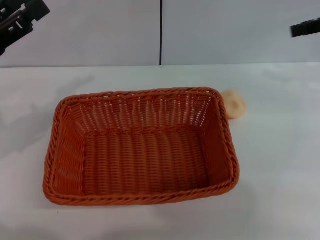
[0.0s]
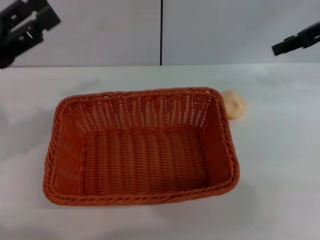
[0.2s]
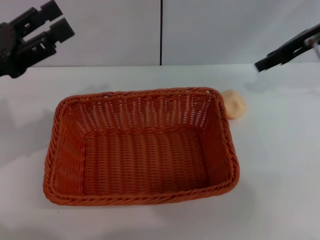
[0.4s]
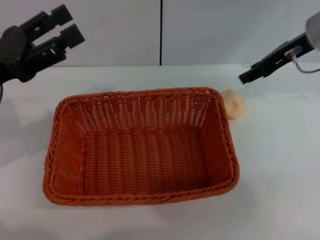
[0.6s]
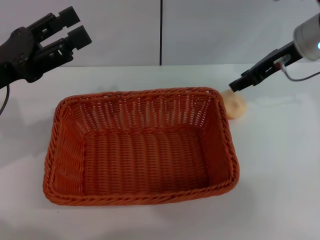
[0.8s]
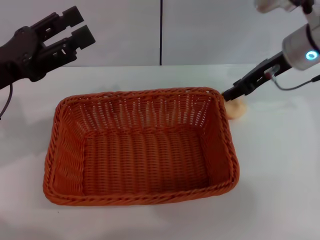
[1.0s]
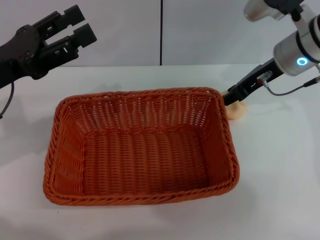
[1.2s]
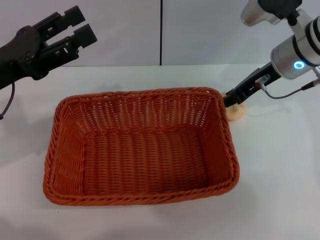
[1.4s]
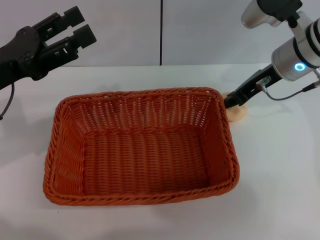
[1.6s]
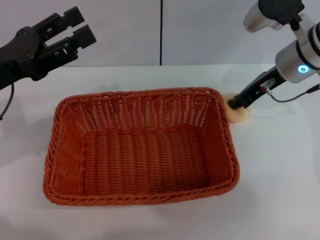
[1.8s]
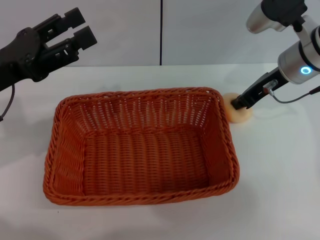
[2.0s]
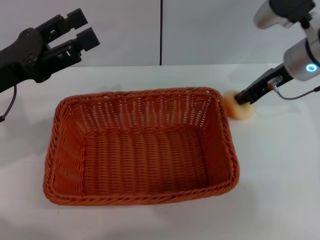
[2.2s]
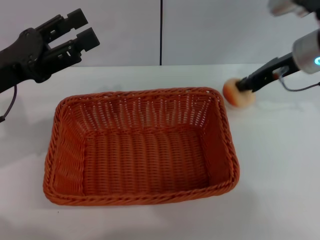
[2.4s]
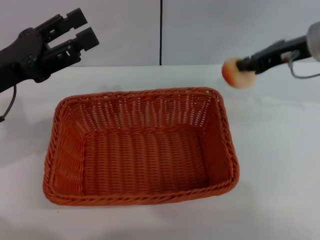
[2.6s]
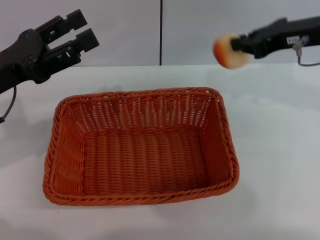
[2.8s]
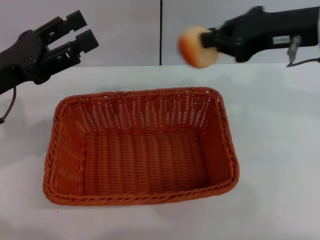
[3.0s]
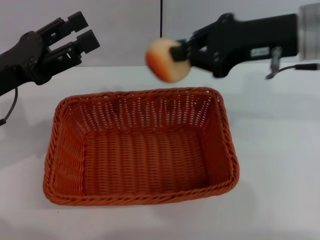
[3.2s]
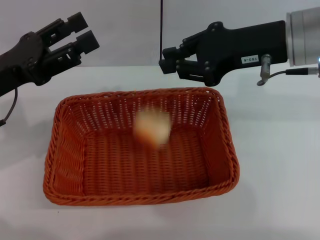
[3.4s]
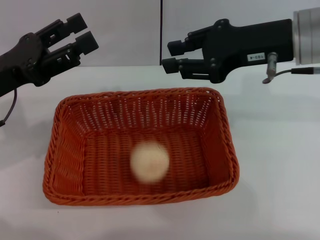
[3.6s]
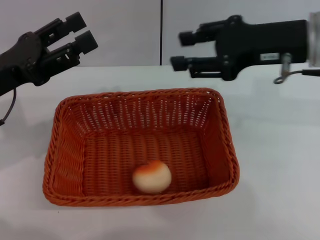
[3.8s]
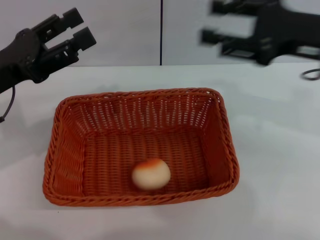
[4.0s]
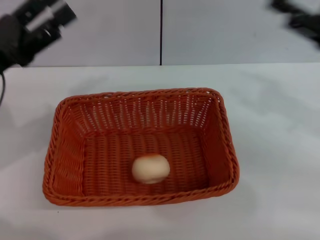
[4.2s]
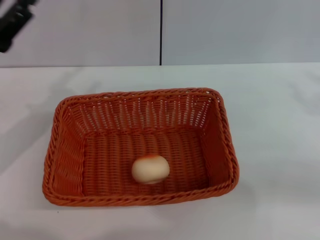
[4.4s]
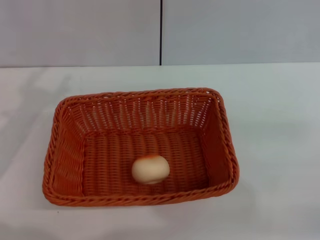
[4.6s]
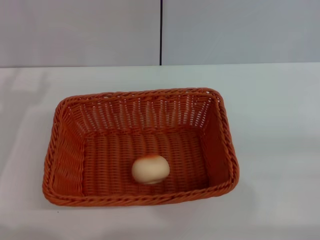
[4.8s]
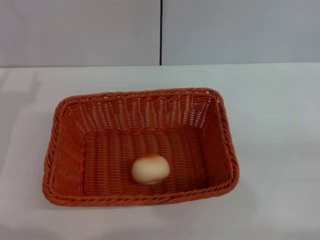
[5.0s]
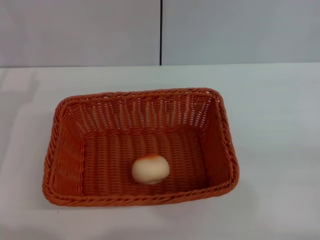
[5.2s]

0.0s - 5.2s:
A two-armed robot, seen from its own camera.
Step, 0.0s - 2.6s: Pick up the egg yolk pastry with the right gripper.
Step, 2.8s - 4.0s: Place the egg yolk pastry into the basket with the right gripper.
0.0s - 1.8s: The right gripper shifts some 15 cm to the left and downward, and closes up.
1.8s - 3.4s: The right gripper travels upward and backward by some 10 cm.
3.4s - 5.2s: The left gripper travels downward by about 5 cm. The right gripper heads to the right, backward and downward, covering approximately 30 cm, and opens up.

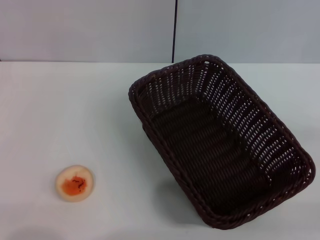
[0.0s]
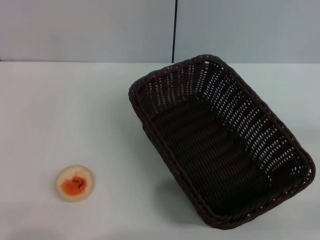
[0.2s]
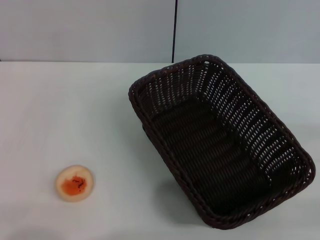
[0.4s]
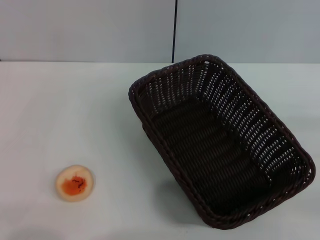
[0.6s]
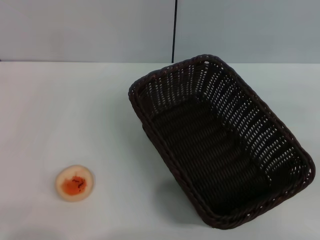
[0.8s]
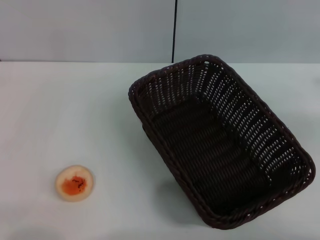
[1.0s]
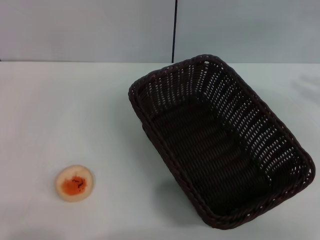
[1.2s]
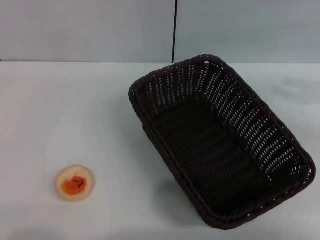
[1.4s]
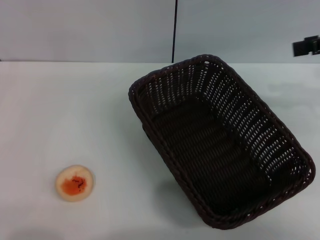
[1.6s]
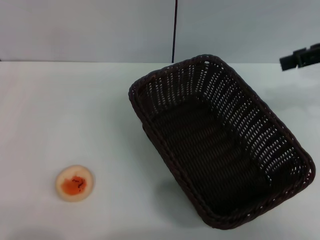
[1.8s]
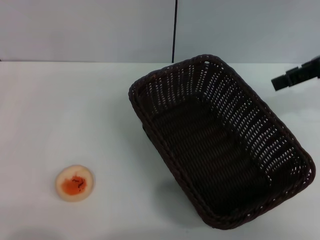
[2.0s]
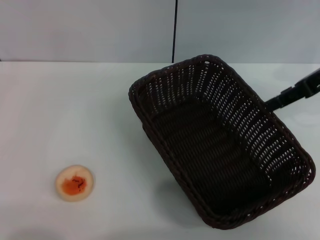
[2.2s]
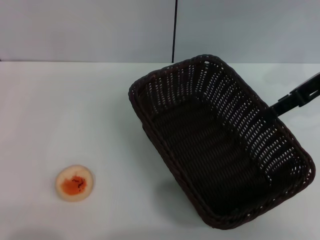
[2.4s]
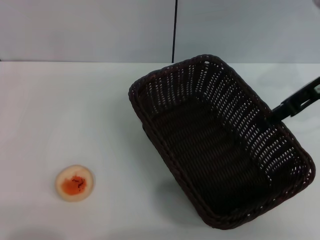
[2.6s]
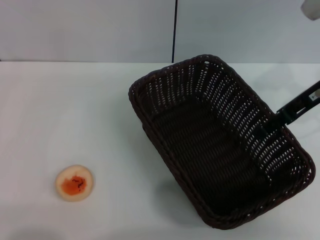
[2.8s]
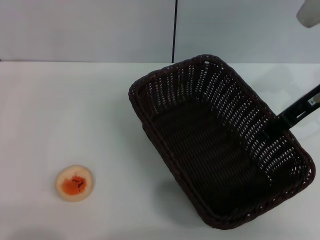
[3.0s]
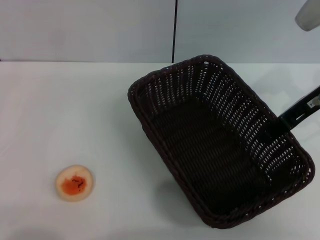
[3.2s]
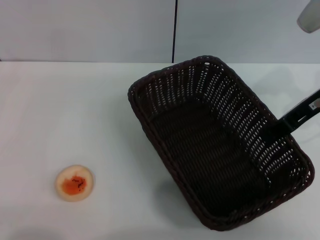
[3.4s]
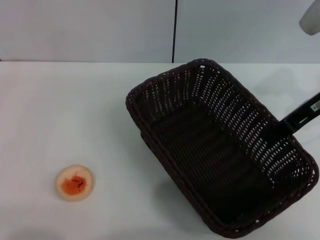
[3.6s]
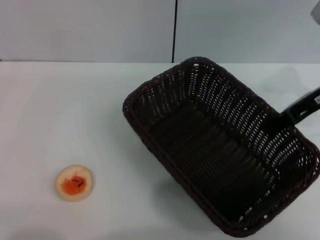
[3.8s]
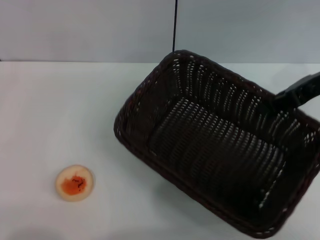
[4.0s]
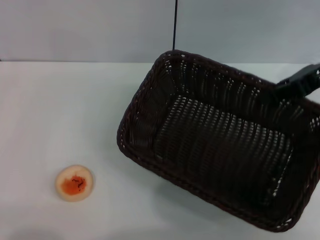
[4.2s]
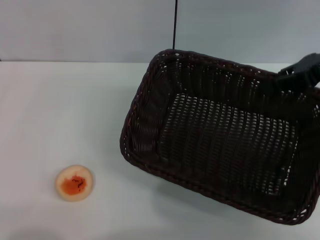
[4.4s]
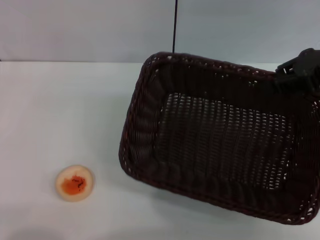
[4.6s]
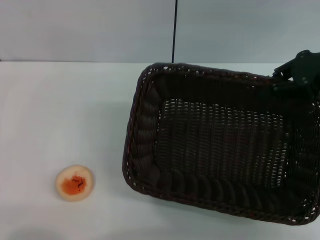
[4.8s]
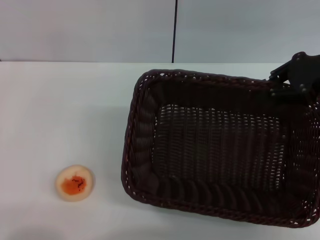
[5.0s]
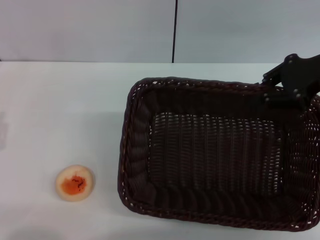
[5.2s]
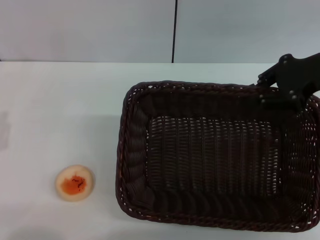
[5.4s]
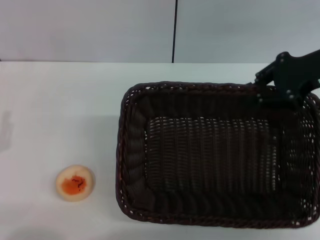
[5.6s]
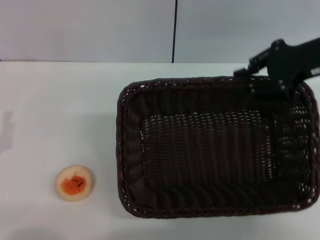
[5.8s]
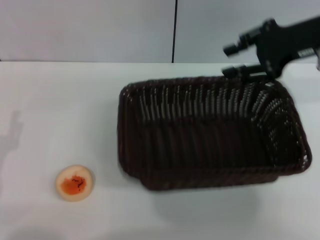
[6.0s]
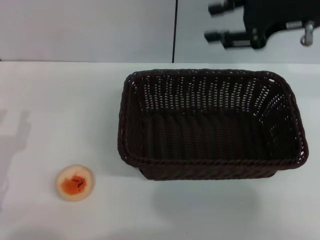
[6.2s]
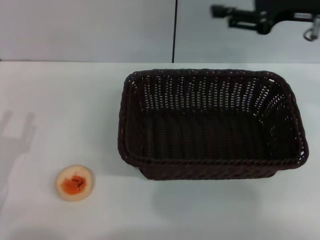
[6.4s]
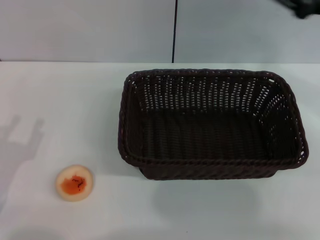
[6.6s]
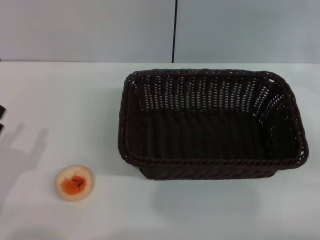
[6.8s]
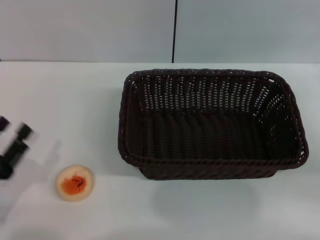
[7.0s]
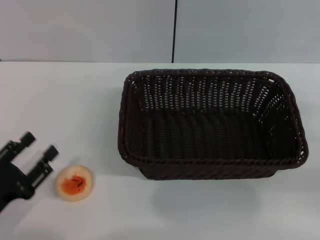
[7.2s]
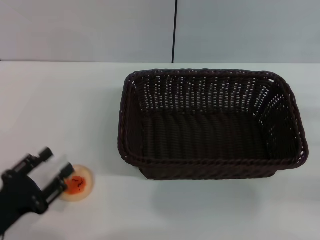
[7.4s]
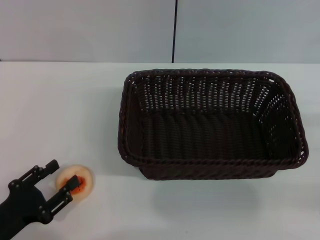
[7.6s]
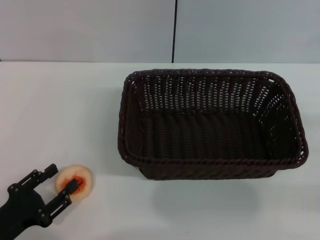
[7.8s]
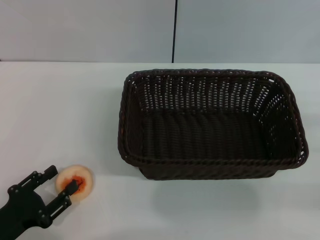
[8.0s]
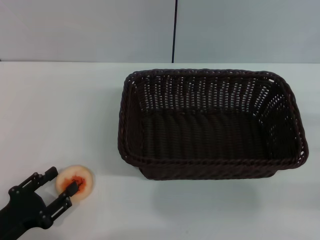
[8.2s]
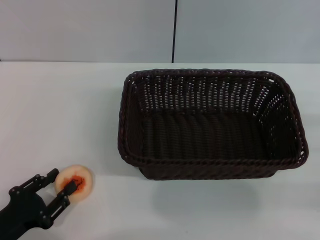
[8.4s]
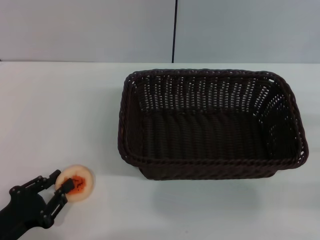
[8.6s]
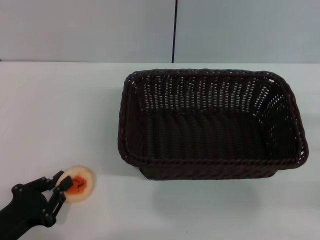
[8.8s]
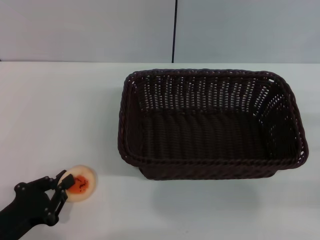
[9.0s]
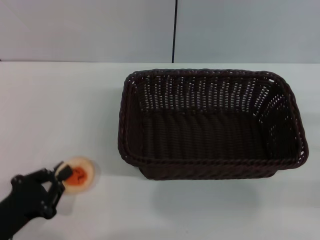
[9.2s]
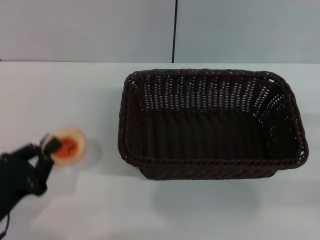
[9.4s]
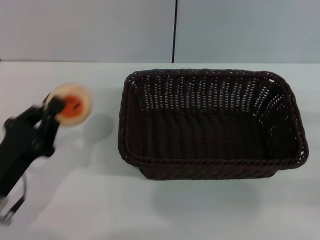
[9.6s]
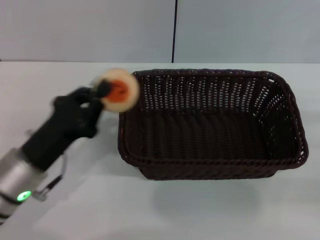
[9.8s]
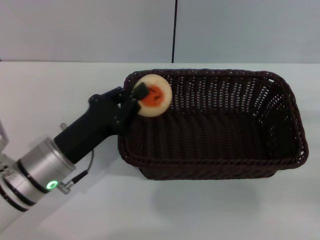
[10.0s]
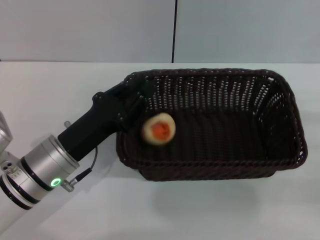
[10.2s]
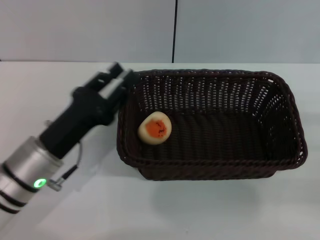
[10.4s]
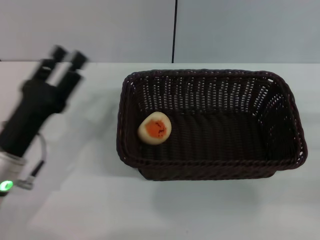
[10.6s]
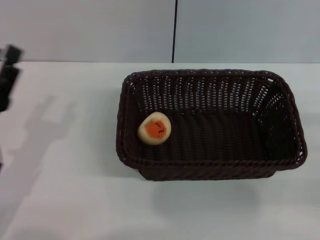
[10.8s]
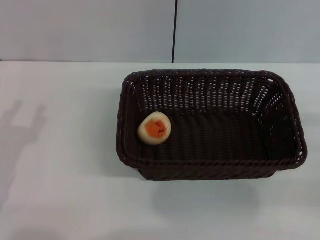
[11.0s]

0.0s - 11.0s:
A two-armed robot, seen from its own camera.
Step, 0.0s - 6.0s: Move the basket to the center of view with the right gripper.
Step, 6.2s - 9.2s: Pick up the egg yolk pastry with the left gripper.
Step, 9.4s - 10.6s: Place the egg yolk pastry into the basket with the left gripper.
0.0s - 1.6s: The right gripper goes some 25 cm upward and forward.
1.6s - 3.2s: The right gripper shifts some 10 cm to the left and downward.
3.2s - 4.8s: The right gripper shifts by roughly 5 cm, and closes up.
4.8s - 6.2s: The right gripper moves to the left, roughly 5 cm, and opens its fingers.
6.2s - 7.8s: The right gripper shifts about 30 cm backward, to the right and downward; the left gripper moves approximately 5 cm.
7.8s - 9.4s: The left gripper closes.
9.4s - 11.0s: The left gripper goes to the right and returns, some 10 cm each way, and opens up.

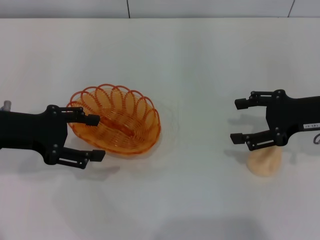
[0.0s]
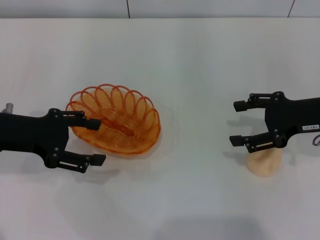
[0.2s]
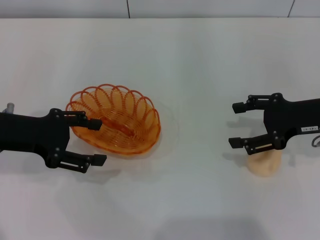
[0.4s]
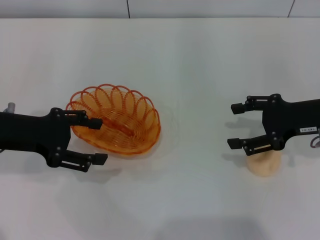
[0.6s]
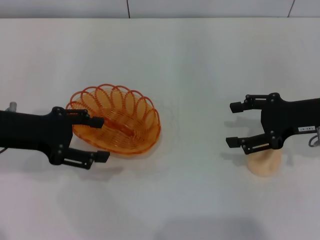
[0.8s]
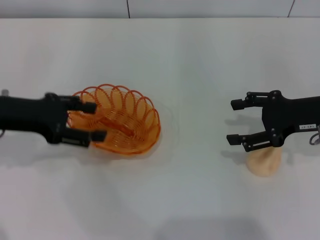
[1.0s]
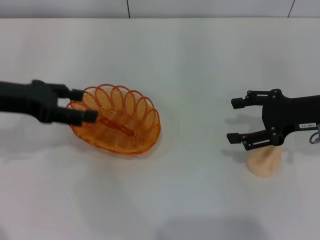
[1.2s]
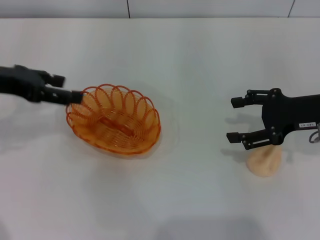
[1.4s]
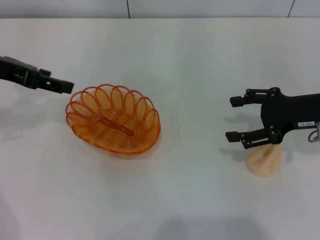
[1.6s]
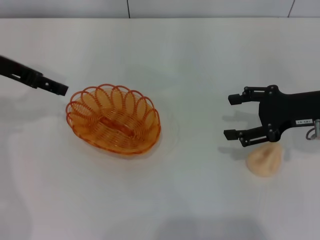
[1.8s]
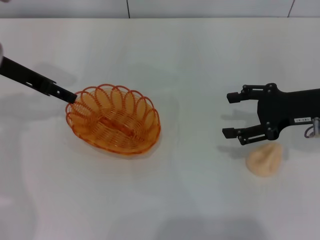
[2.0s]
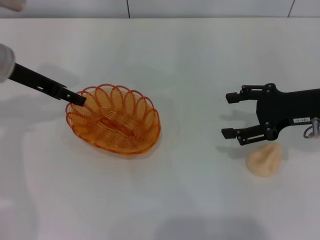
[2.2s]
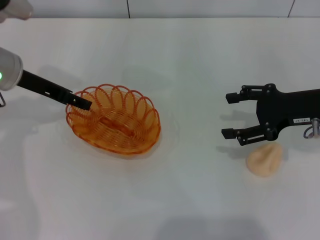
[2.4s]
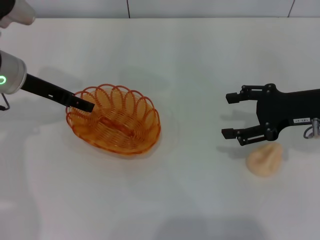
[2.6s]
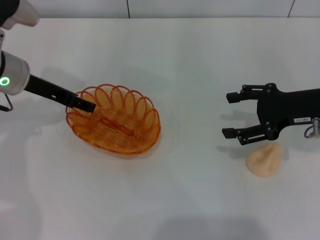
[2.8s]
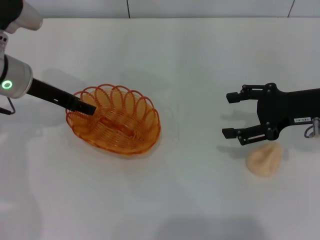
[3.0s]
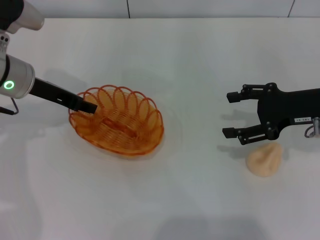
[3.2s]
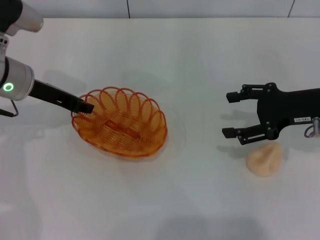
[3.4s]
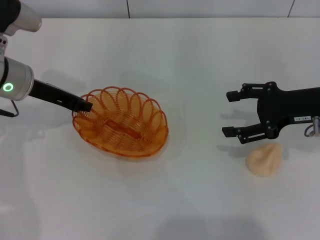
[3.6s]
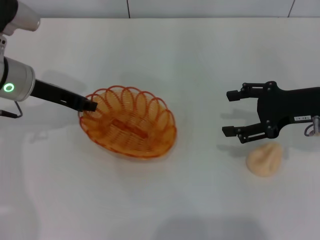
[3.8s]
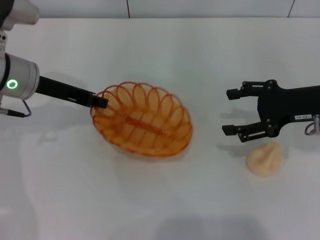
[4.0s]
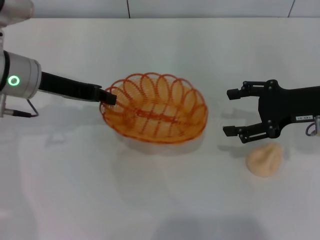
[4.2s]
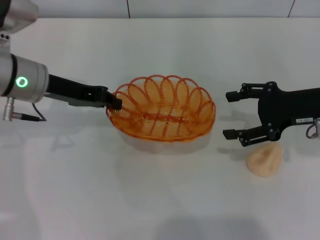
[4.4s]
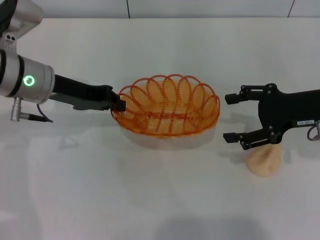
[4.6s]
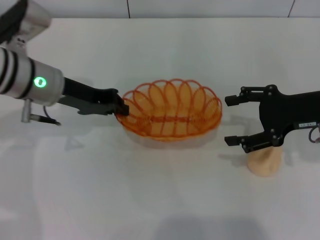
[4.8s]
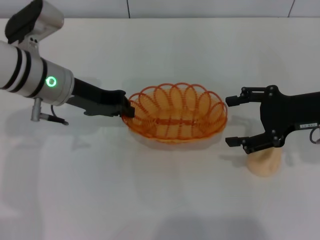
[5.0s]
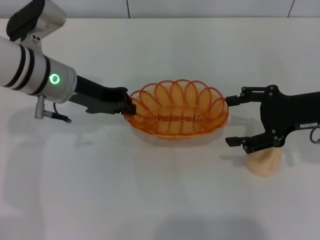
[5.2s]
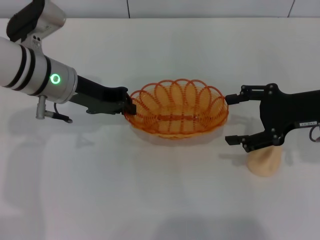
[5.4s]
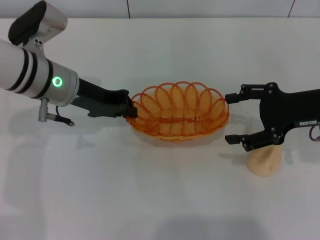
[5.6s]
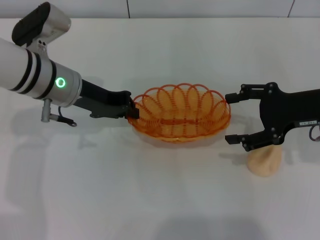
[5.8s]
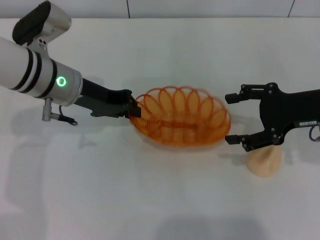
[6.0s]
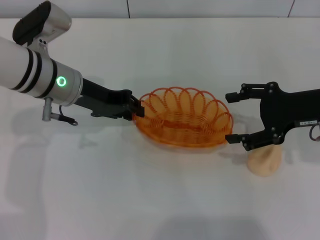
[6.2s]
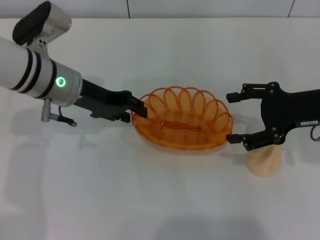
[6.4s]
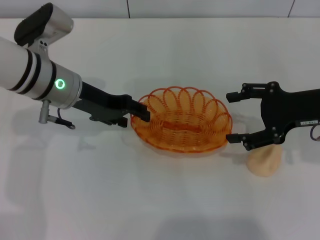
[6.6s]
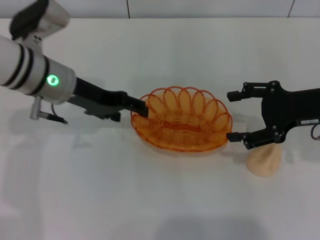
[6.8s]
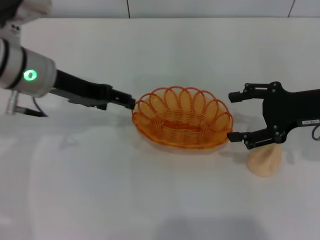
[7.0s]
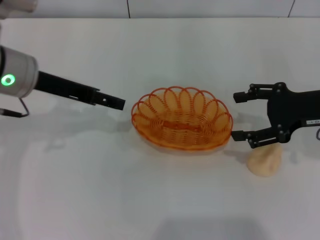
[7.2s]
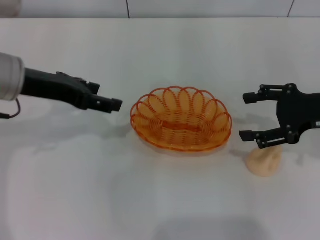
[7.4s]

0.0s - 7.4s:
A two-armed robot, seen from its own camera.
Step, 0.0s - 4.4s: Pick up the basket with the left gripper.
0.0s - 1.4s: The left gripper goes approximately 5 cm upward.
1.4s - 3.0s: The left gripper moves downward, to the right and forward, about 10 cm.
3.0s - 4.4s: The left gripper closes up.
4.4s - 6.0s: The grippers make only small movements.
6.0s - 7.4s: The left gripper is displaced to the left and upward by some 10 cm, and opens.
